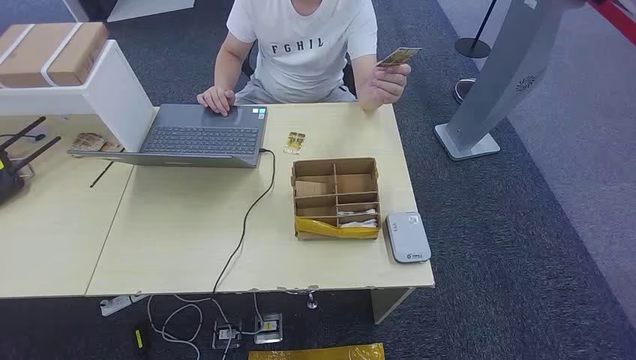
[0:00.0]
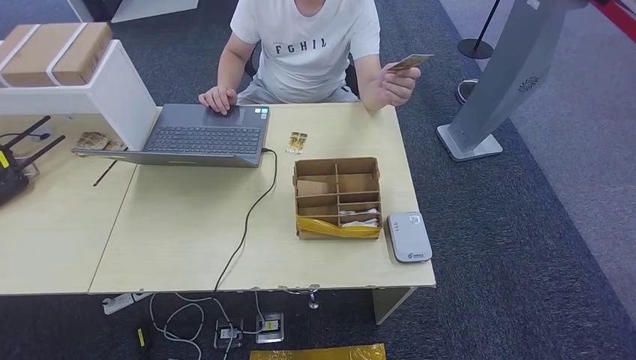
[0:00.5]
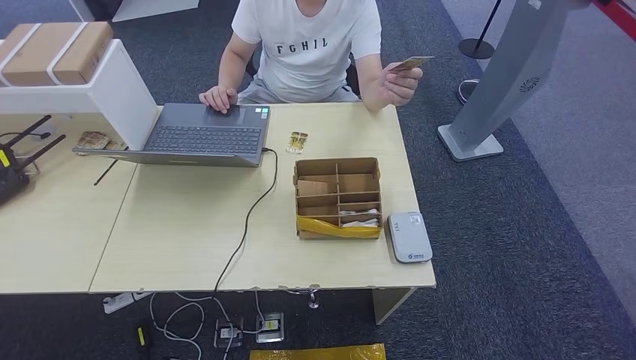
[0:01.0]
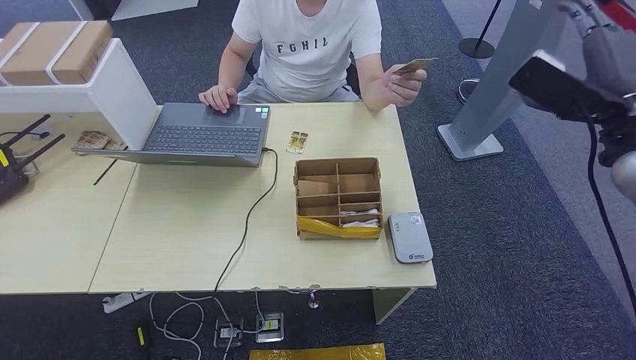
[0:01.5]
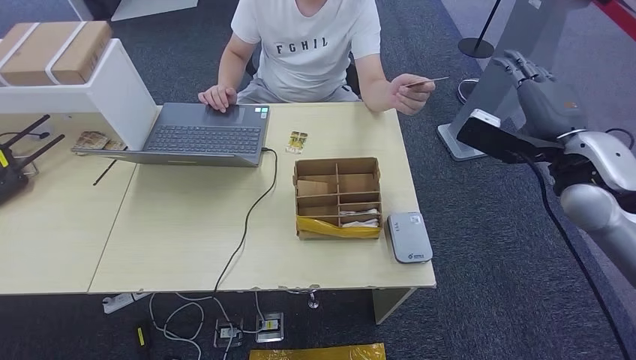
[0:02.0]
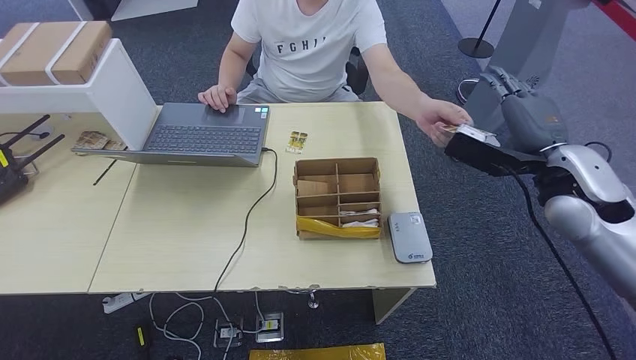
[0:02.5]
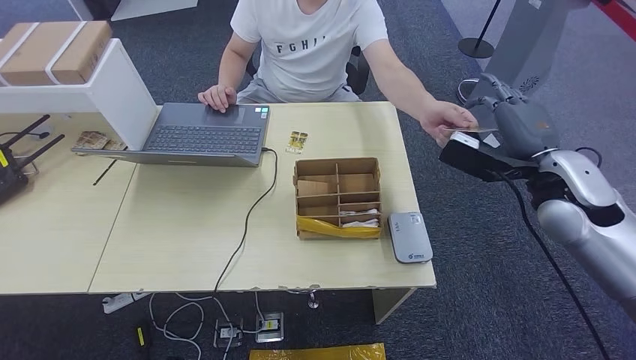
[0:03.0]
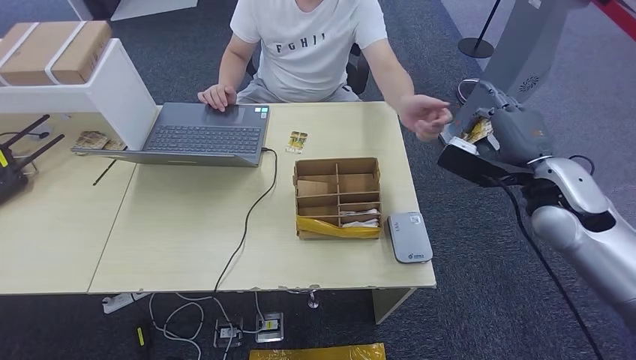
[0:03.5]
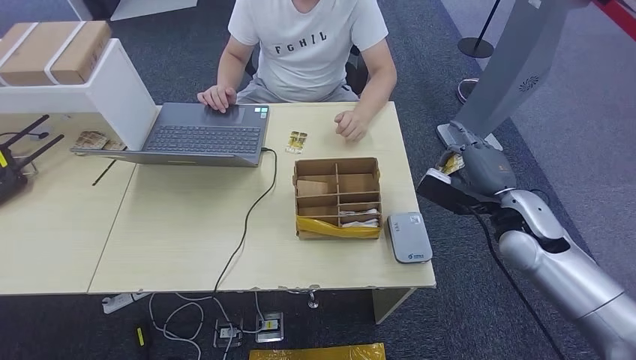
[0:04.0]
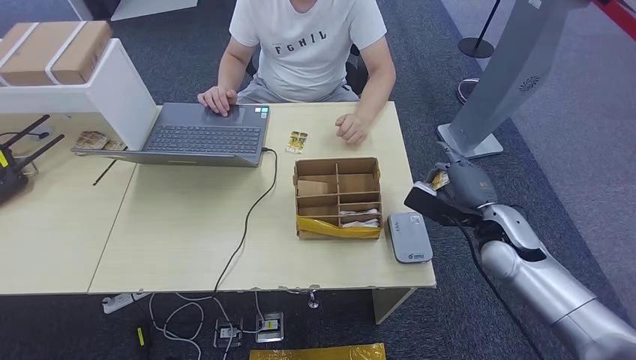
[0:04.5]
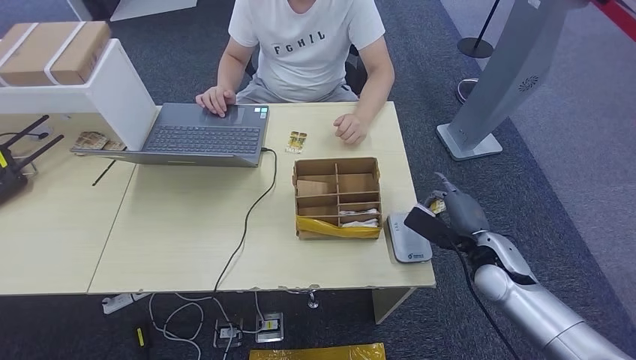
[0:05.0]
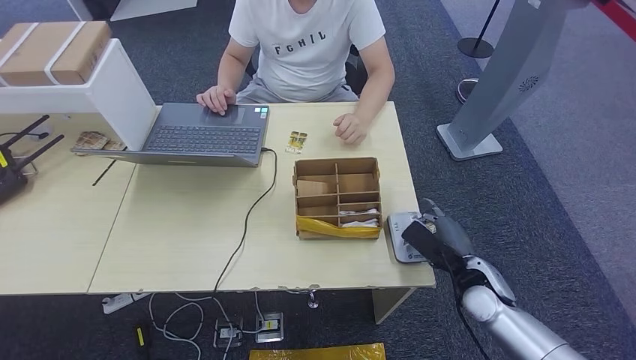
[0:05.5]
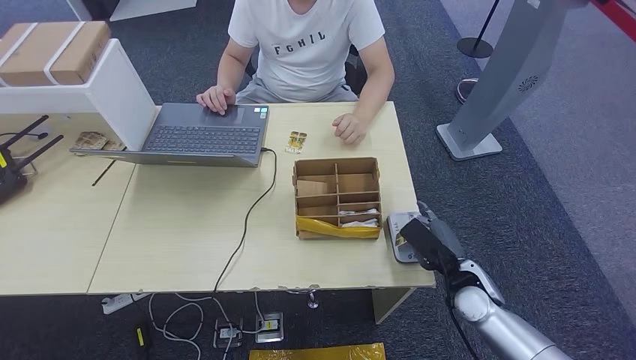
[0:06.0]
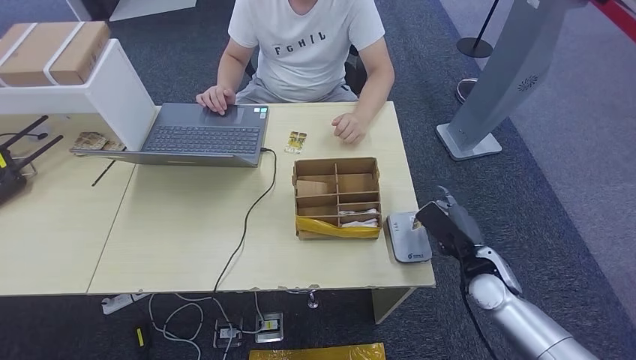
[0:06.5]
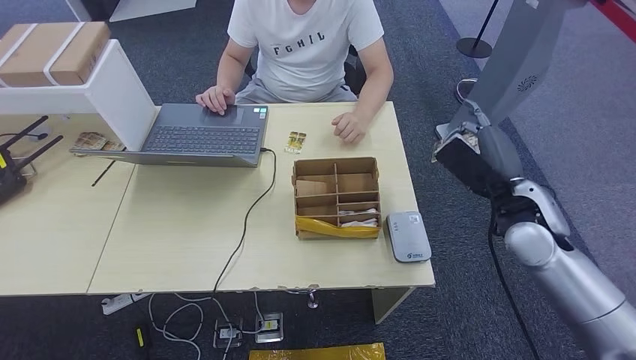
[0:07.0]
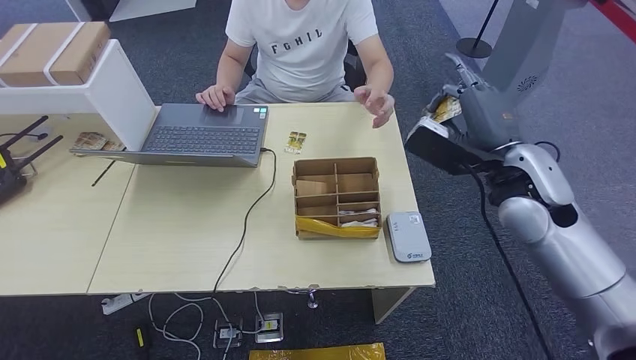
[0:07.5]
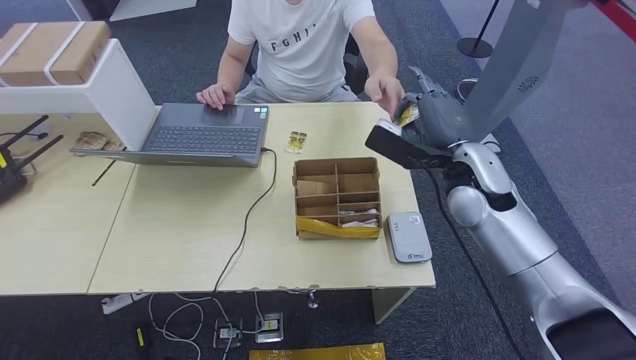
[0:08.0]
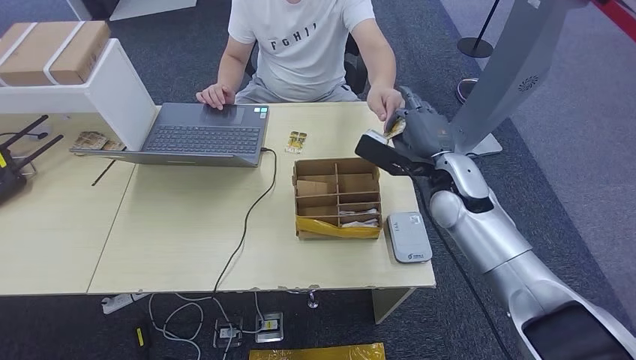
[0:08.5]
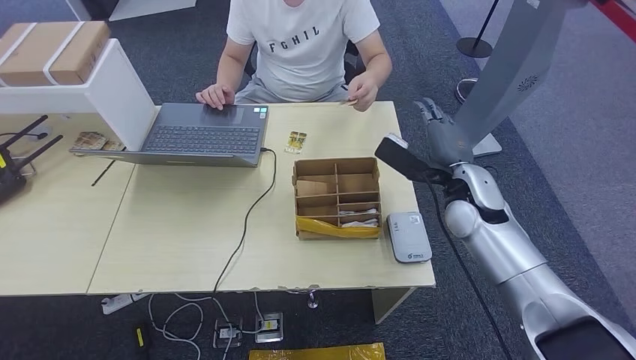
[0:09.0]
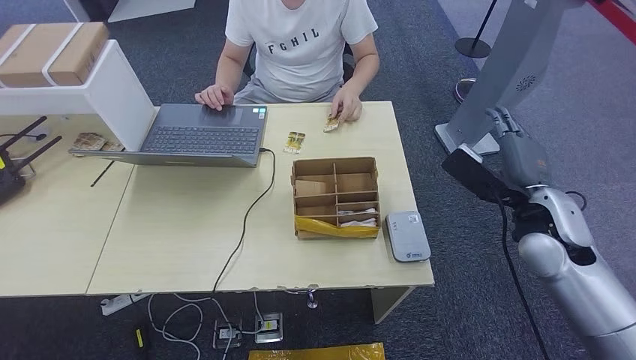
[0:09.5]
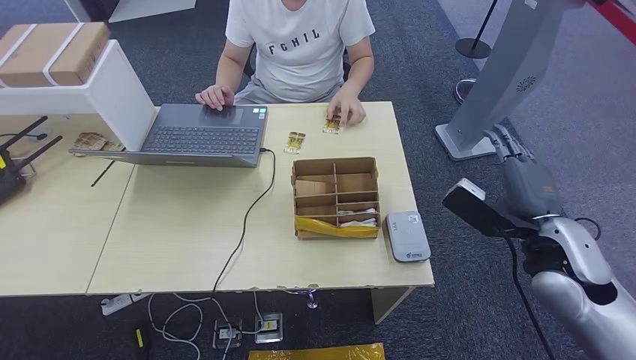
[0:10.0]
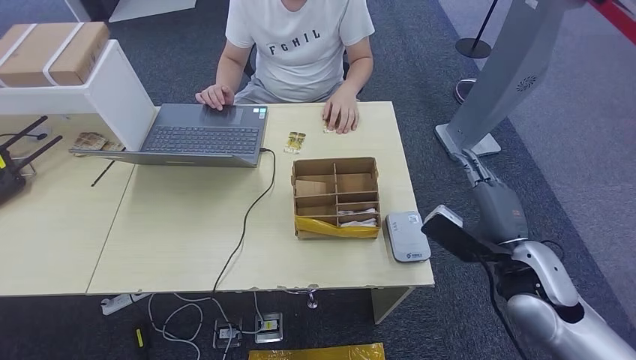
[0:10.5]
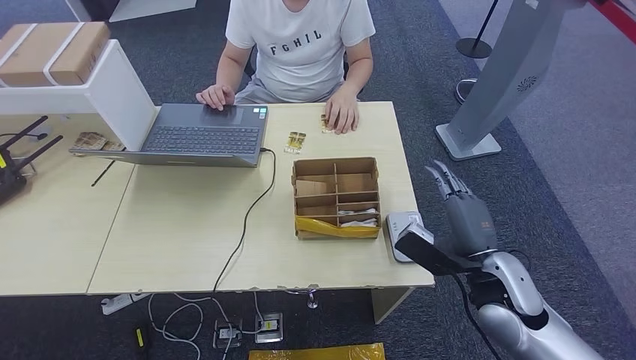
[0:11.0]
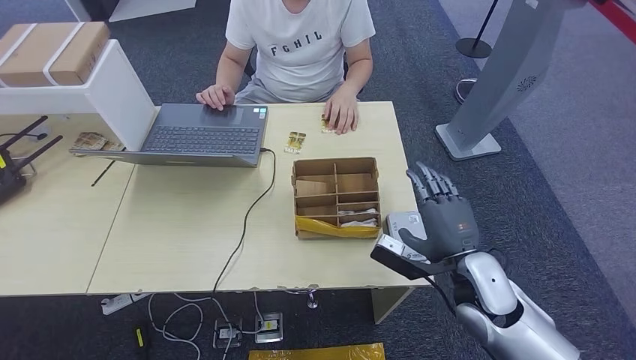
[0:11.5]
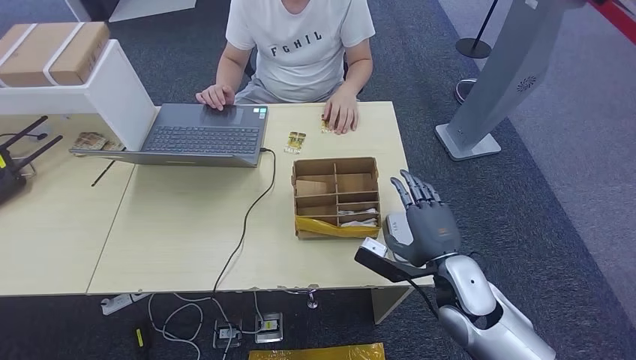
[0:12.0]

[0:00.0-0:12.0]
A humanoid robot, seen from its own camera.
Step, 0:00.0 to 0:03.0: Take the ID card from the person's hand.
Step, 0:06.0 to 0:09.5: Hand the ID card to the person.
0:02.0 to 0:04.0: The right hand travels downward by about 10 cm.
0:04.0 to 0:06.0: The right hand heads downward, backward and to the left, covering roughly 15 cm.
0:06.0 to 0:08.0: The right hand goes some 25 cm upward and forward.
0:08.0 to 0:10.0: The right hand is displaced backward and to the right by about 15 cm.
0:10.0 to 0:12.0: The right hand heads to the left and downward, covering about 15 cm.

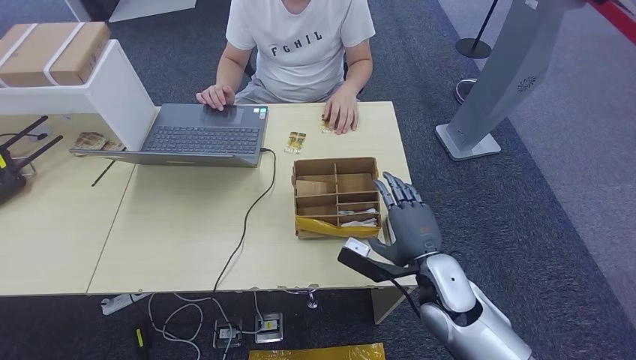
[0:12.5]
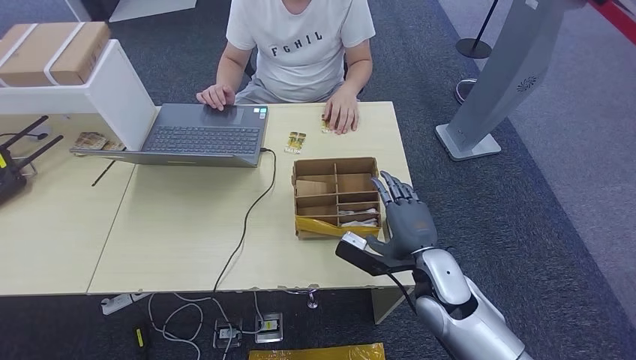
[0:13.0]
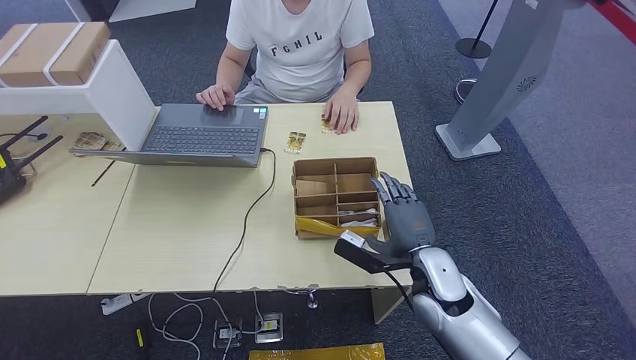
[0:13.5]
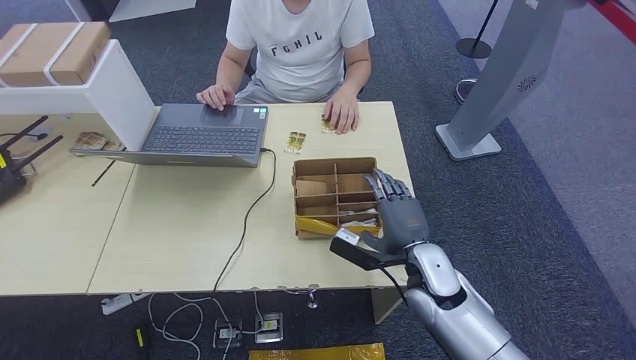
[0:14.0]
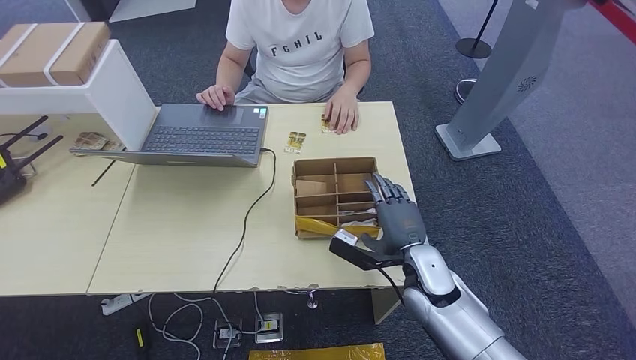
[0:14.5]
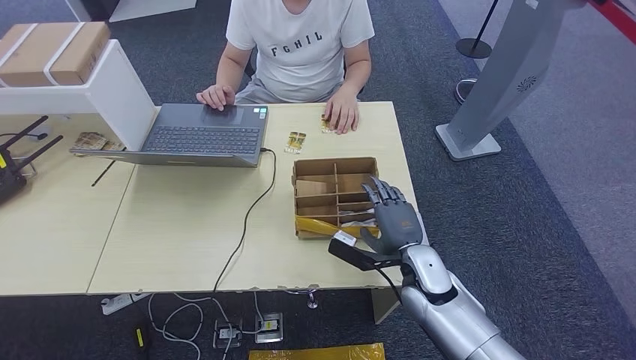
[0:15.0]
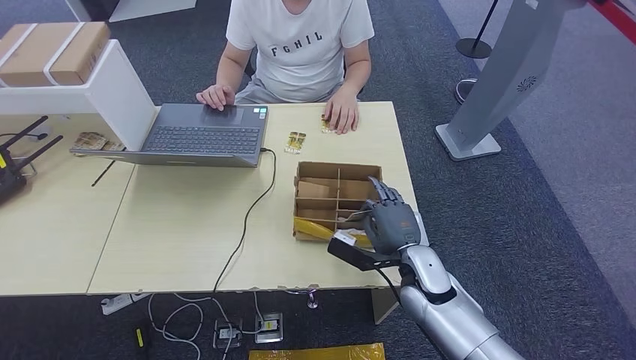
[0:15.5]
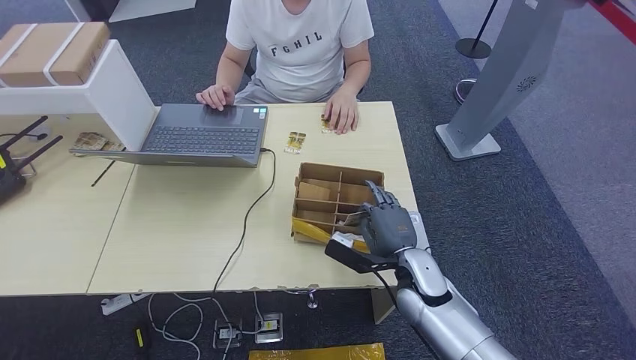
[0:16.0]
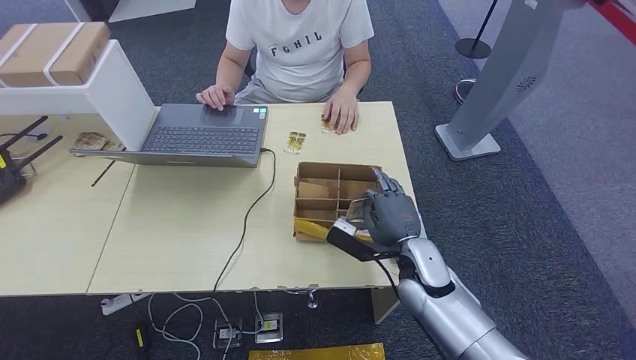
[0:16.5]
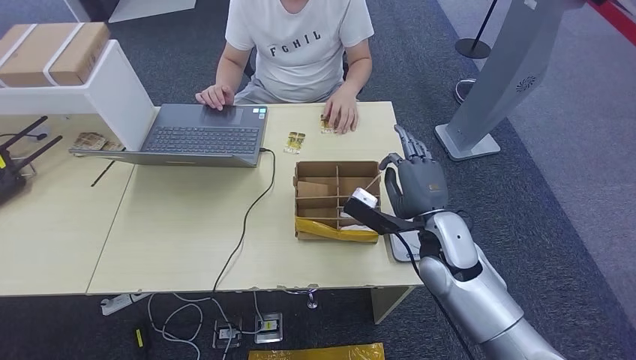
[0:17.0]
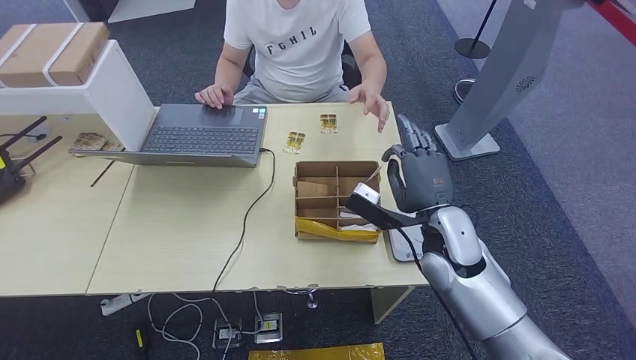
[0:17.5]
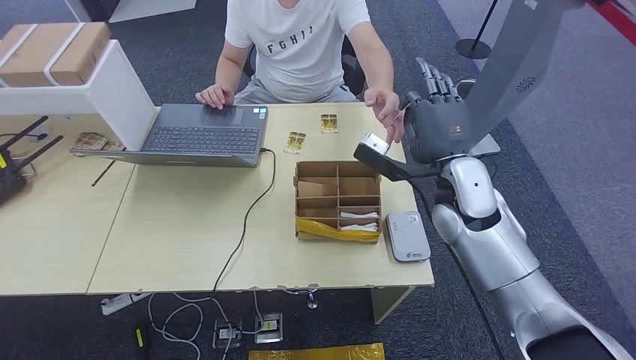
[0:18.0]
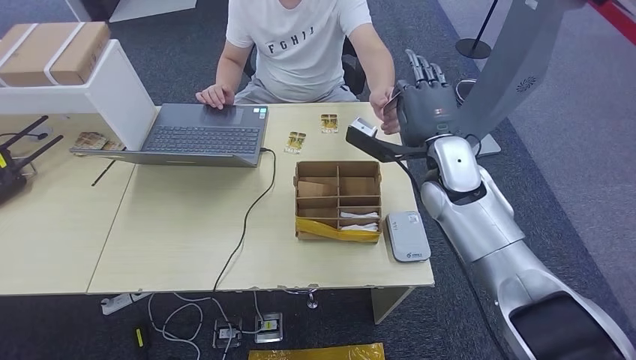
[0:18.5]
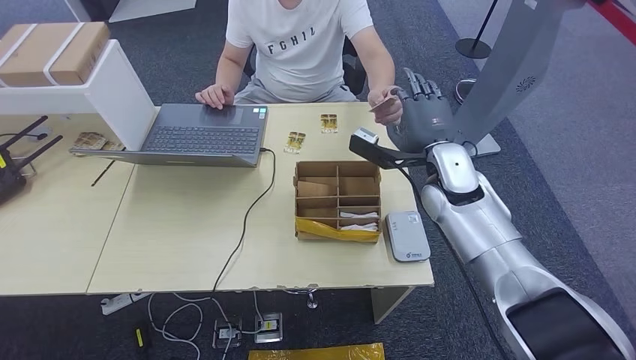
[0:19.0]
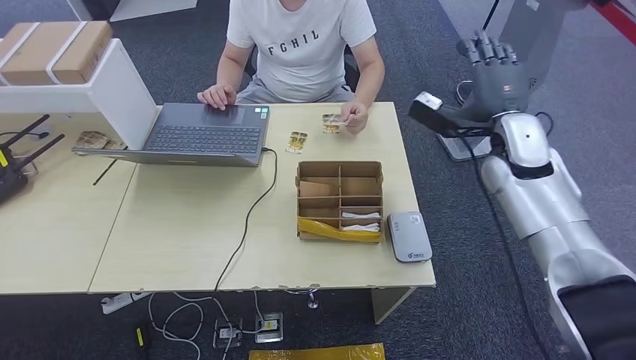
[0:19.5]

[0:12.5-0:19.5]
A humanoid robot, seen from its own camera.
Step, 0:12.5 to 0:17.0: Pick up the room key from the key card box.
Step, 0:17.5 to 0:19.5: Hand the room key to the person.
0:12.5 to 0:16.0: The hands move only a little.
0:16.0 to 0:17.5: The right hand moves upward, approximately 10 cm.
0:17.5 to 0:19.5: The right hand shifts some 20 cm forward, to the right and upward.
